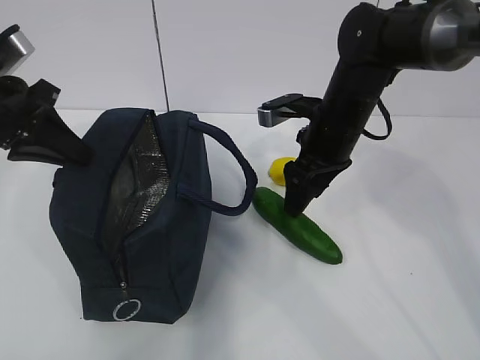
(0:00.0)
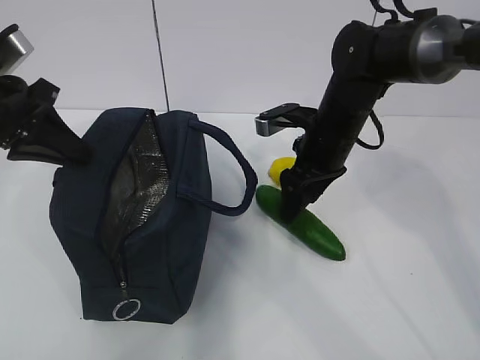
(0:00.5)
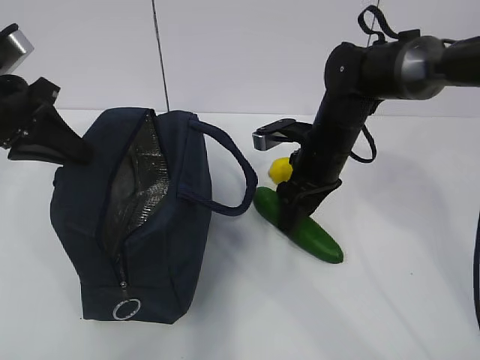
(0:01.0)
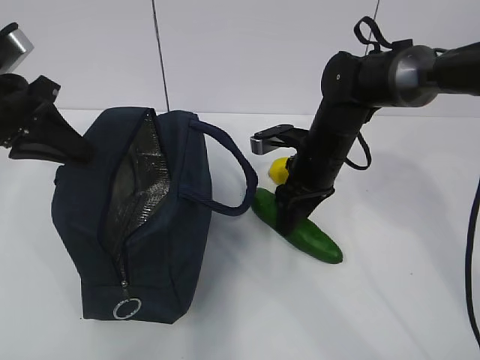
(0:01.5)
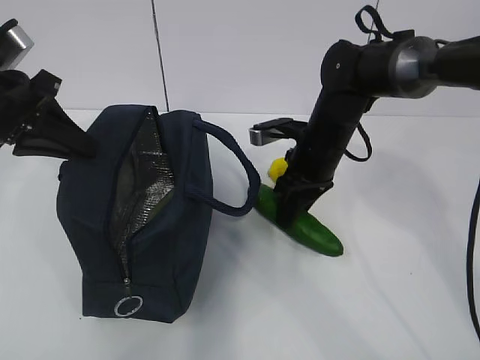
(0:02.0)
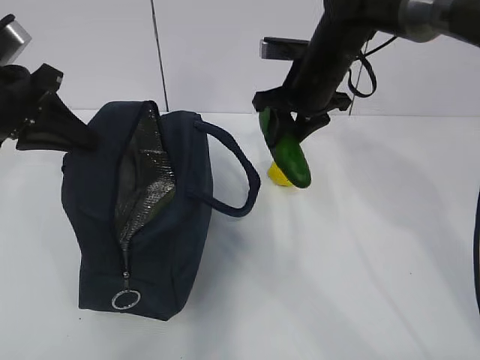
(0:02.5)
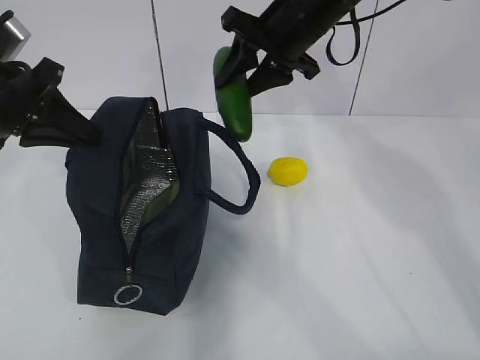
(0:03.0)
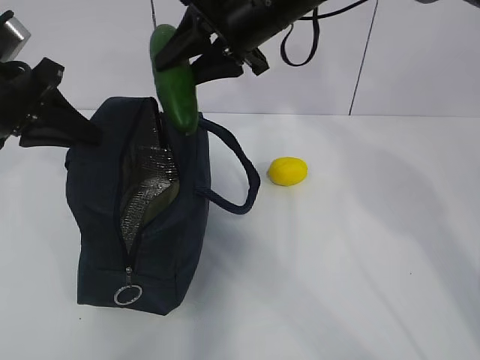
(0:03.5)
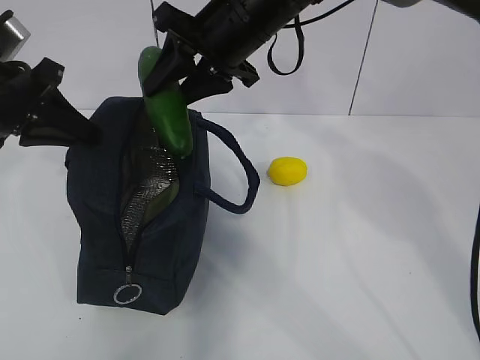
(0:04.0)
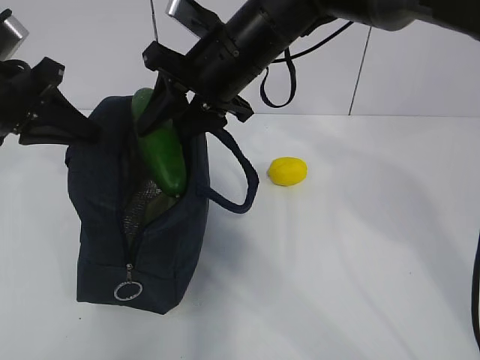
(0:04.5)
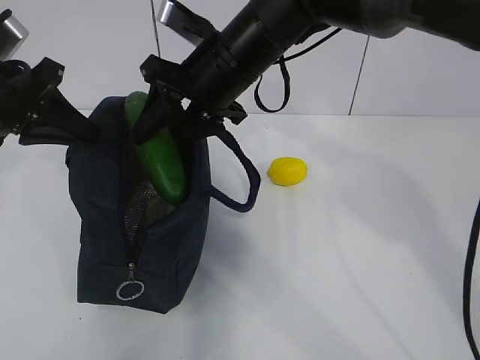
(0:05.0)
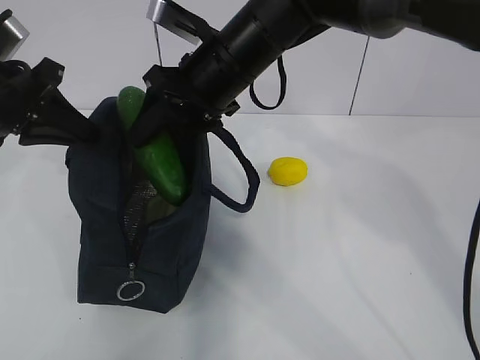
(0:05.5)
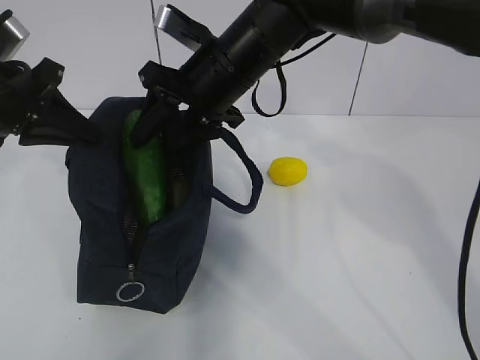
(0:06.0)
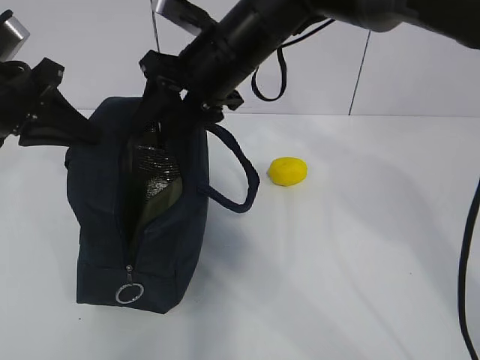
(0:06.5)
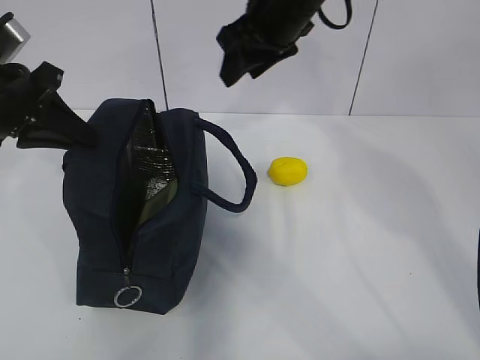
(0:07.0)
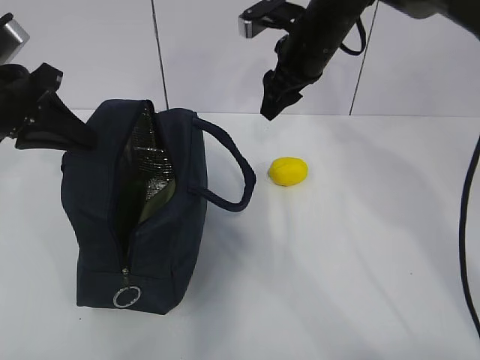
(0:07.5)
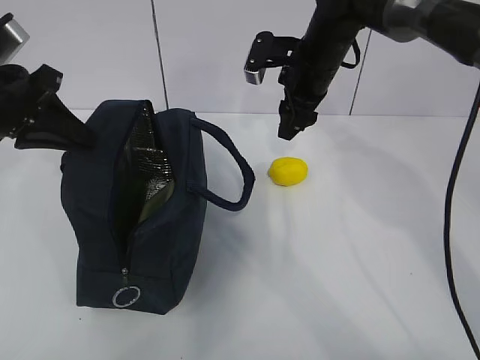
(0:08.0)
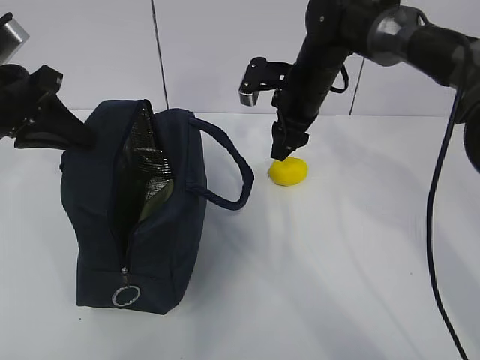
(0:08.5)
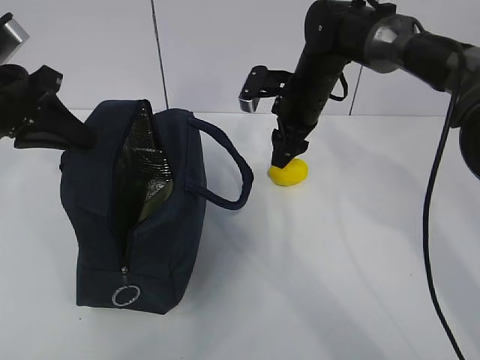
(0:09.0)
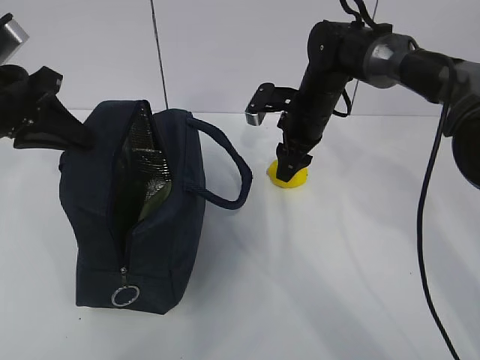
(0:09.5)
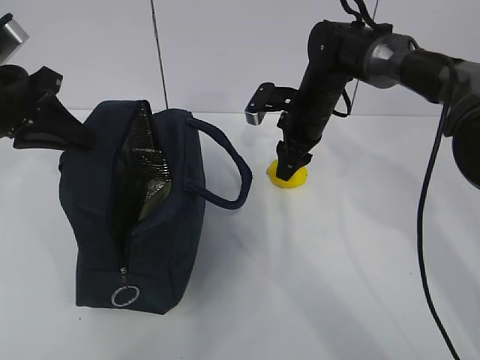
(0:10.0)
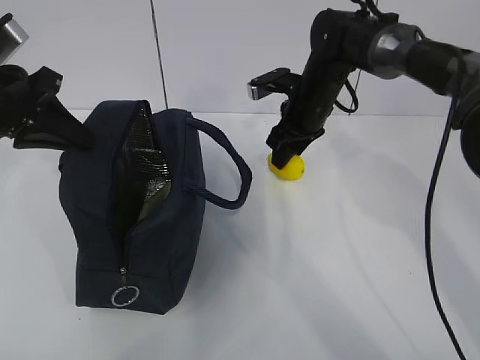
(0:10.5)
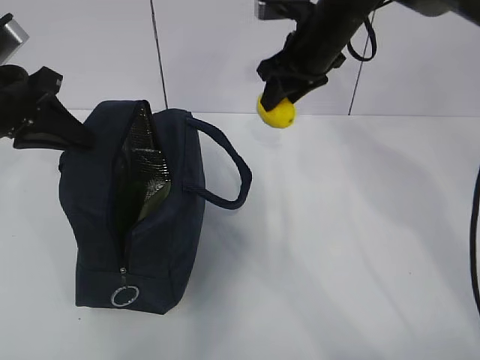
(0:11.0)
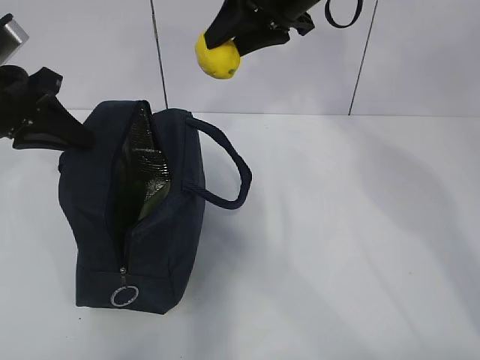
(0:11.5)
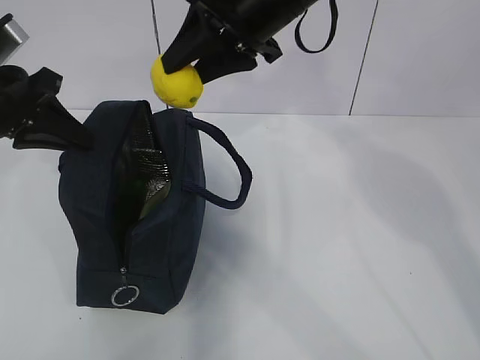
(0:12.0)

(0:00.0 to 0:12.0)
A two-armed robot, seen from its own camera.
Step, 0:00.5 - 0:03.5: Grab the lemon with your right hand.
Step, 0:07.5 - 0:09.0: Grab the lunch bag with your right hand.
0:00.0 - 0:02.0: The right gripper closes.
0:02.0 - 0:04.0: The right gripper travels upward and to the left by some 20 cm.
0:04.0 - 0:06.0: The grippers make only small movements.
0:06.0 - 0:08.0: The right gripper moves to the right and forward, some 15 cm.
0:08.0 - 0:10.0: The right gripper is displaced downward by some 10 cm.
0:10.0 - 0:12.0: The right gripper travels upward and backward by approximately 20 cm.

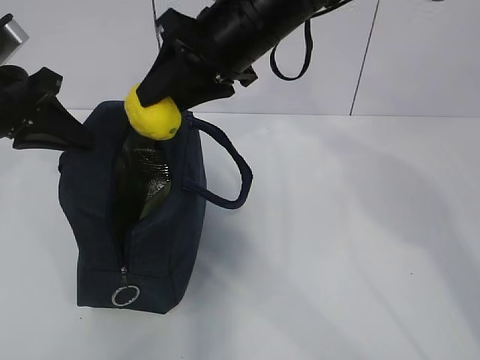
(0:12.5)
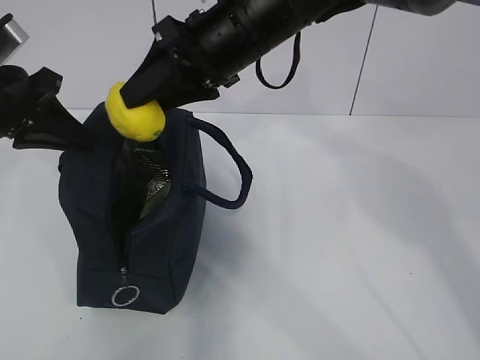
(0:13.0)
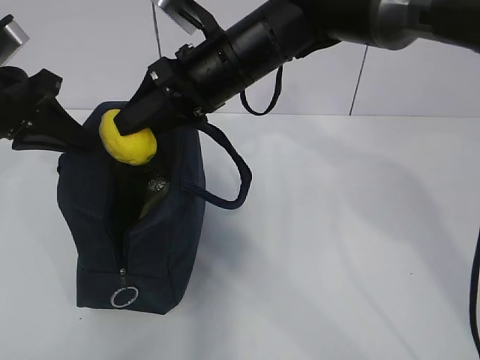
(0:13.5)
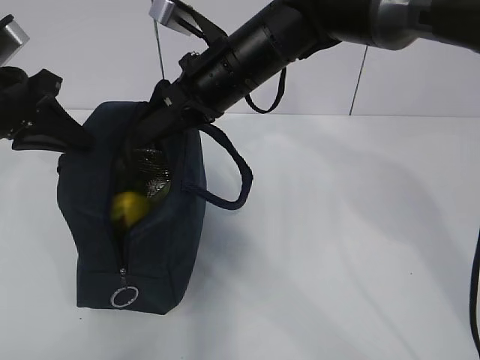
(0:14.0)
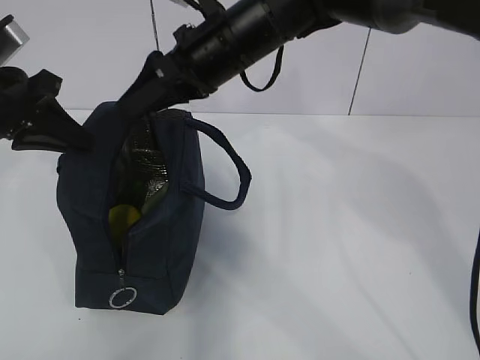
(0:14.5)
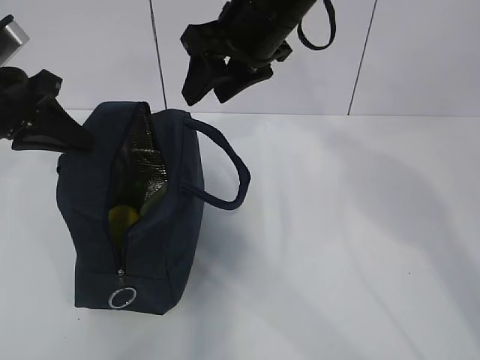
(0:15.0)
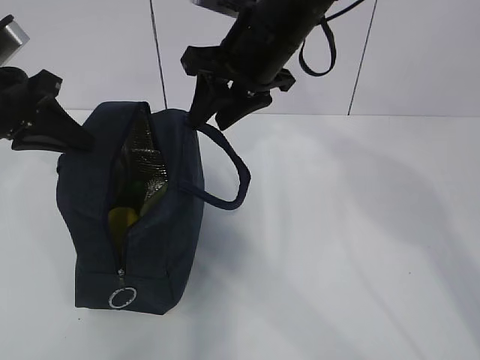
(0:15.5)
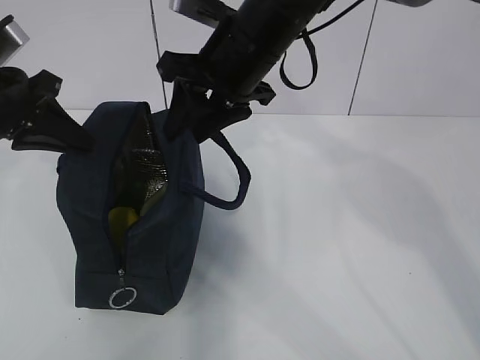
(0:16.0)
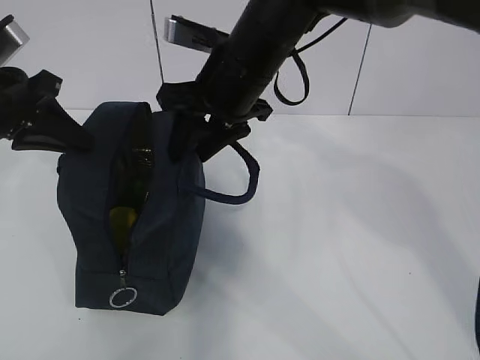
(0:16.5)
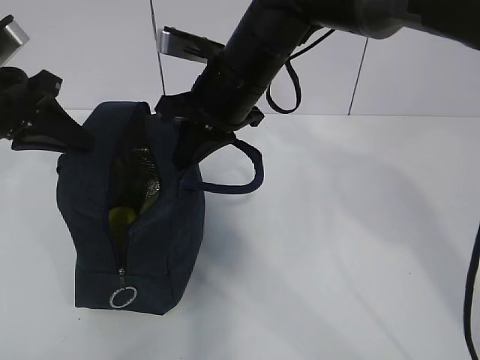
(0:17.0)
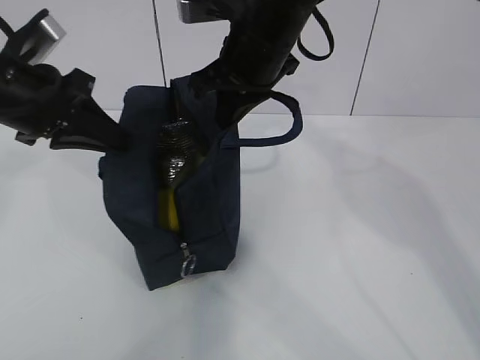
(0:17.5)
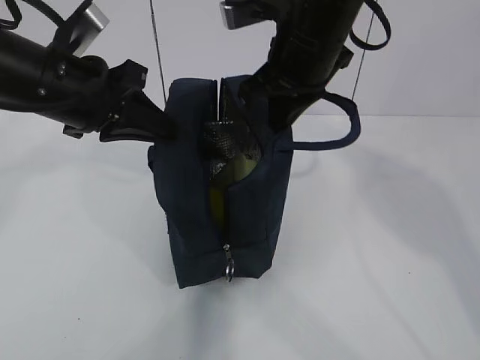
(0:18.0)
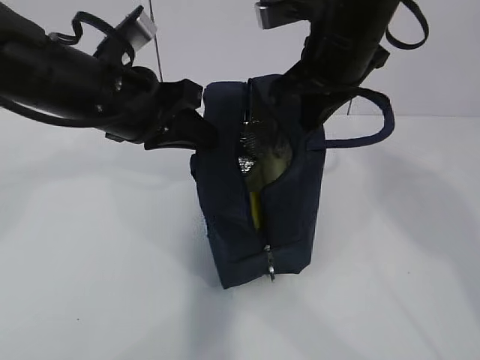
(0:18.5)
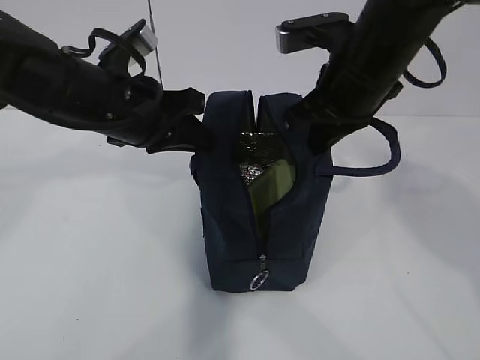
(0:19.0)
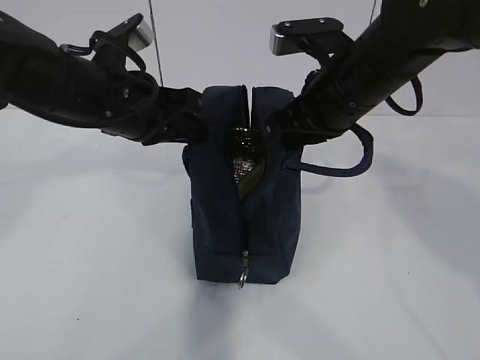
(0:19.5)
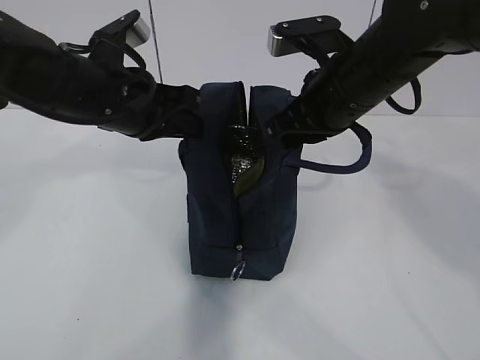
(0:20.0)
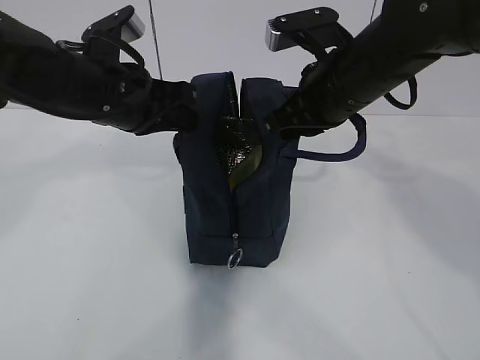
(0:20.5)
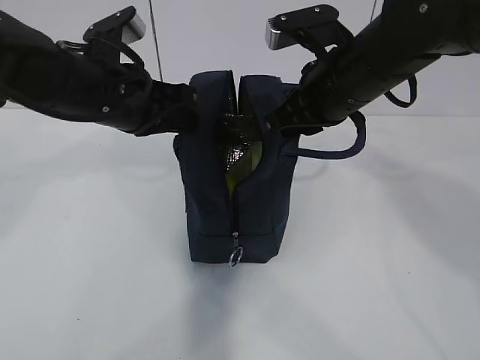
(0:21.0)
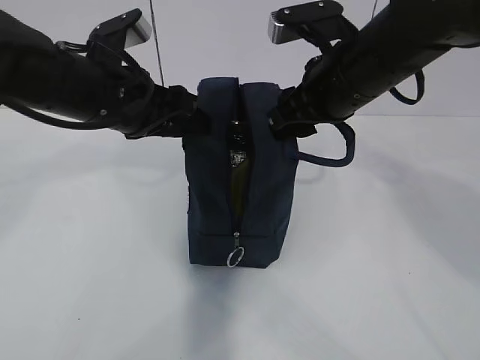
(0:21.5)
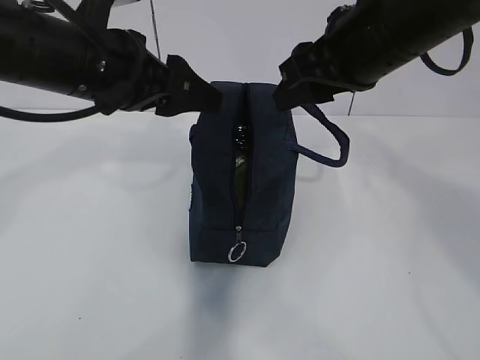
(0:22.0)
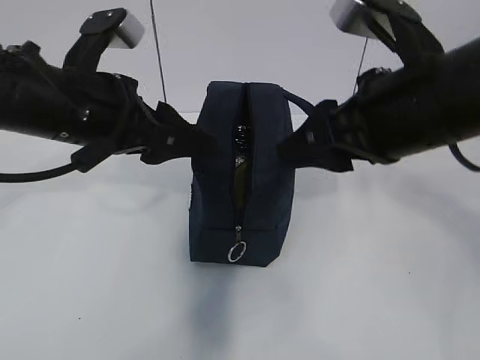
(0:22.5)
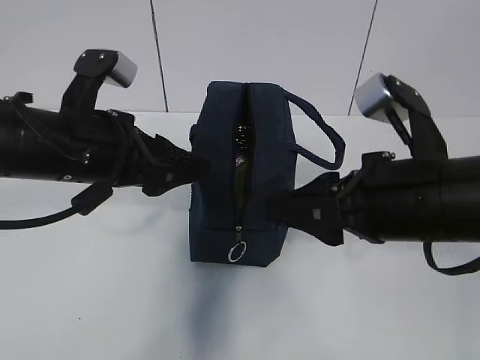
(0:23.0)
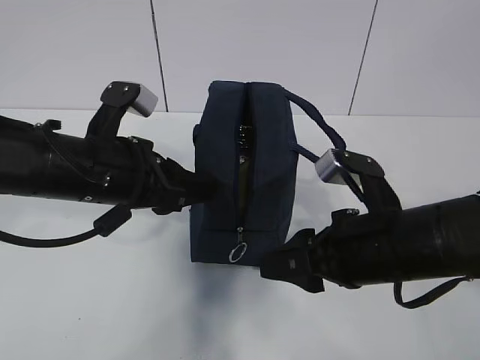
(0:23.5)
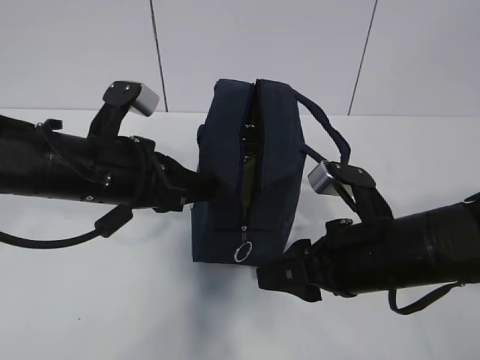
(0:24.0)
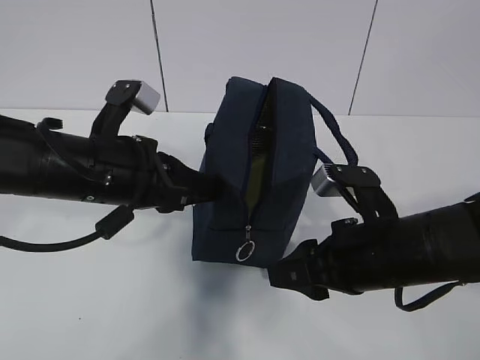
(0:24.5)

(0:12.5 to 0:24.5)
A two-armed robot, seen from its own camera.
0:16.5 - 0:18.5: Both grippers travel together to the right, approximately 10 cm. The right gripper closes its fingers.
0:20.5 - 0:22.5: The left gripper goes about 5 cm backward, and opens; the right gripper travels backward by some 10 cm, and opens its fingers.
0:22.5 - 0:24.5: The left gripper travels downward by some 5 cm, and closes up; the right gripper shifts roughly 15 cm downward.

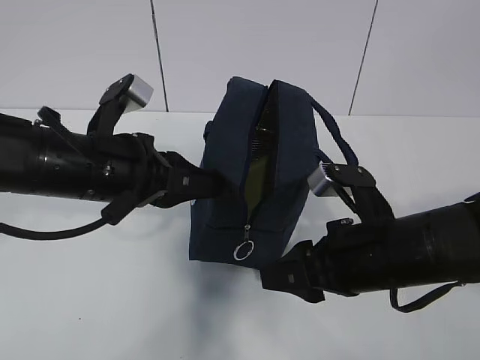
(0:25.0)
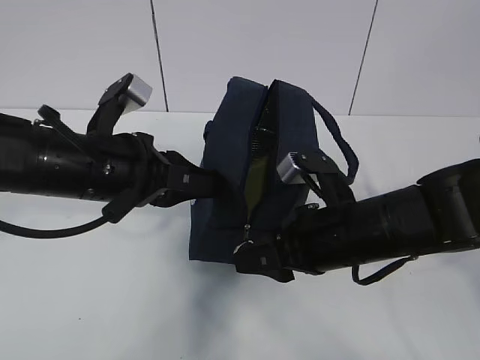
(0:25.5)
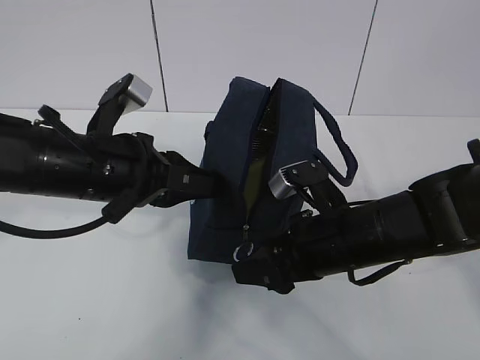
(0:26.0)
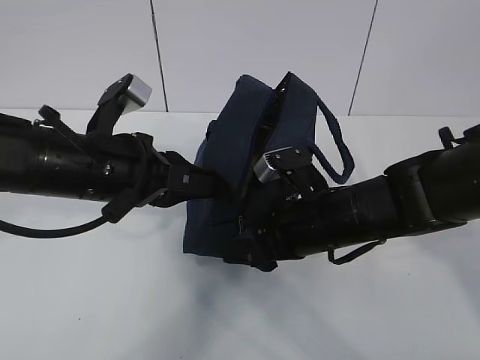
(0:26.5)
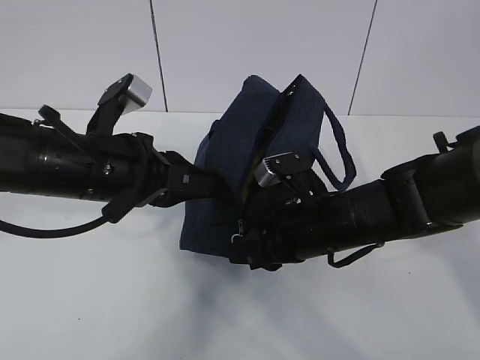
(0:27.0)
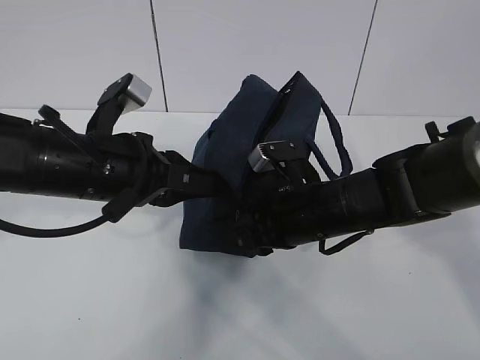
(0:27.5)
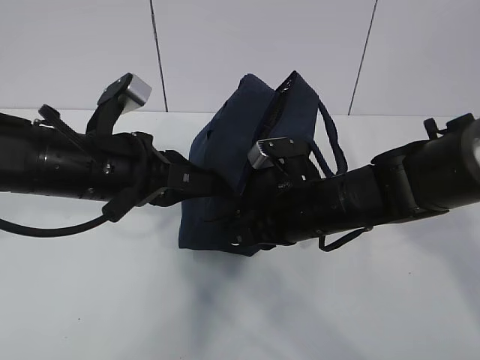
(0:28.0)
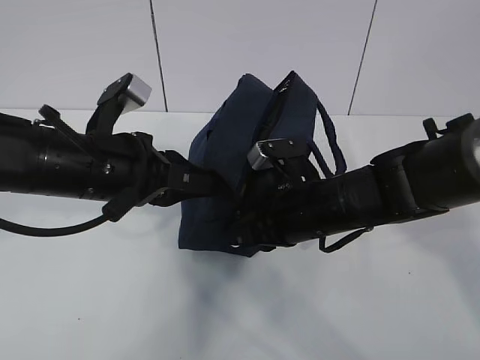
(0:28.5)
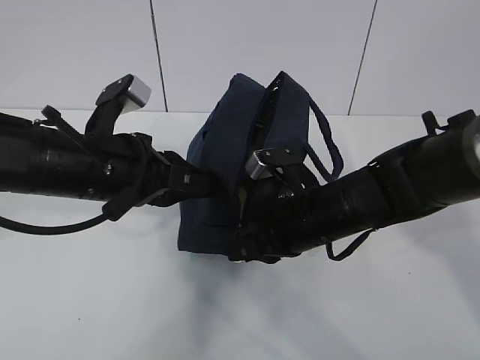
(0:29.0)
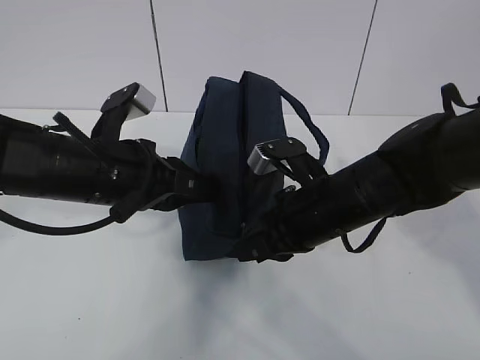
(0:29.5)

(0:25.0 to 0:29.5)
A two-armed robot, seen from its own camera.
0:25.0 - 0:27.0: The right gripper is displaced forward by approximately 5 cm.
0:27.0 - 0:29.5: The right gripper closes its fingers.
